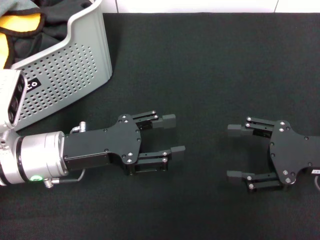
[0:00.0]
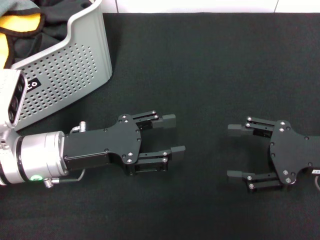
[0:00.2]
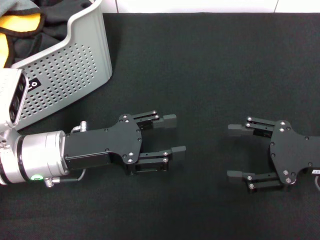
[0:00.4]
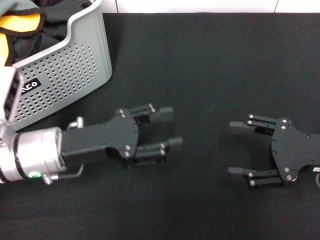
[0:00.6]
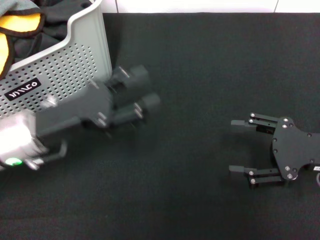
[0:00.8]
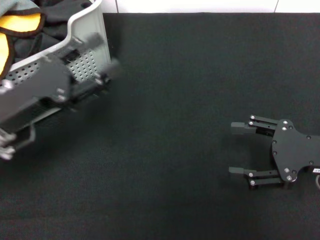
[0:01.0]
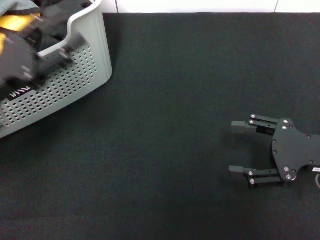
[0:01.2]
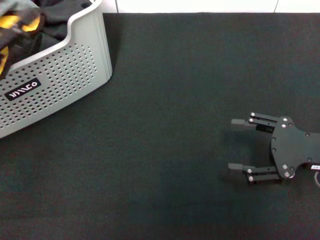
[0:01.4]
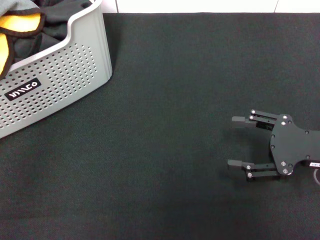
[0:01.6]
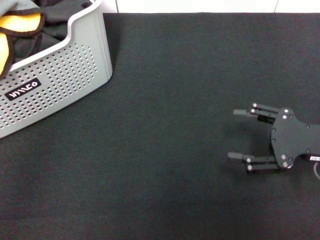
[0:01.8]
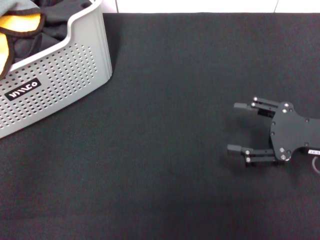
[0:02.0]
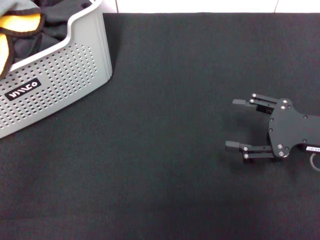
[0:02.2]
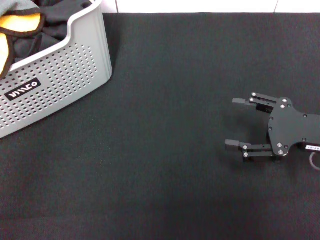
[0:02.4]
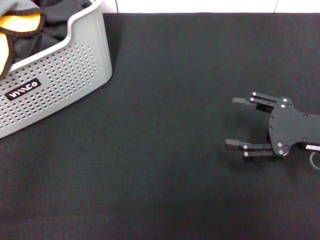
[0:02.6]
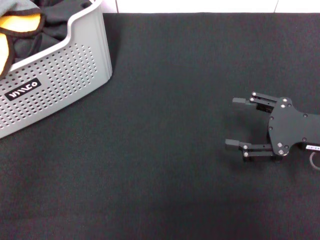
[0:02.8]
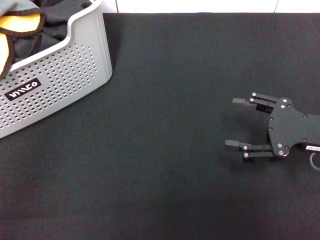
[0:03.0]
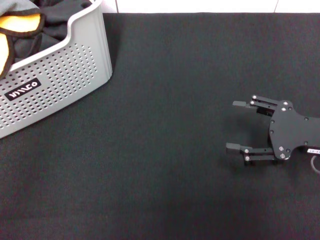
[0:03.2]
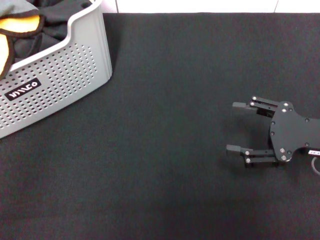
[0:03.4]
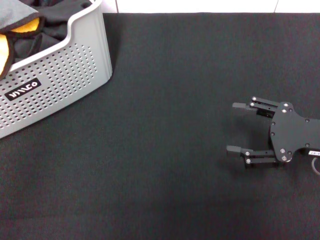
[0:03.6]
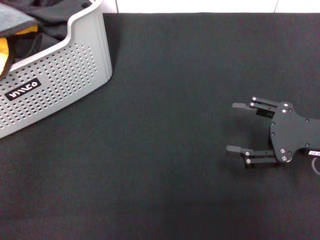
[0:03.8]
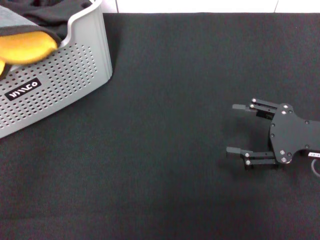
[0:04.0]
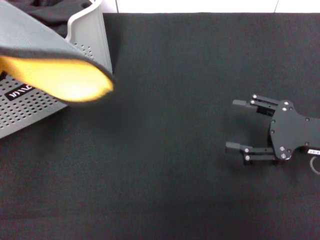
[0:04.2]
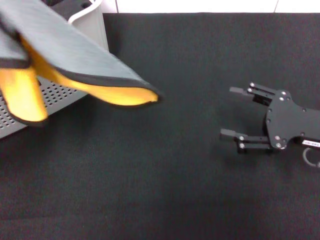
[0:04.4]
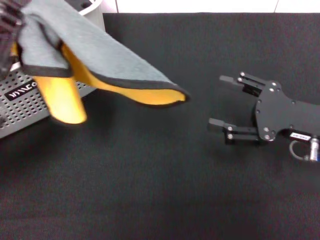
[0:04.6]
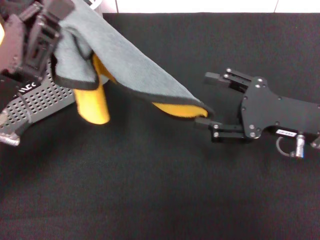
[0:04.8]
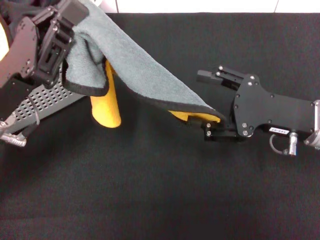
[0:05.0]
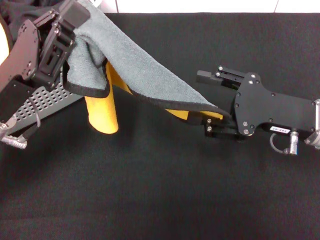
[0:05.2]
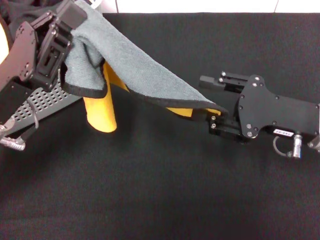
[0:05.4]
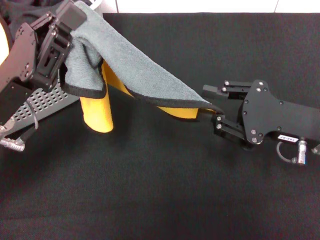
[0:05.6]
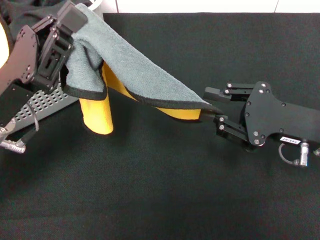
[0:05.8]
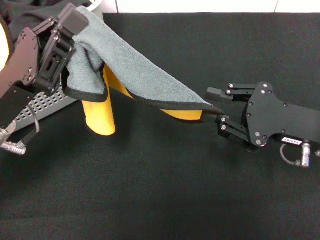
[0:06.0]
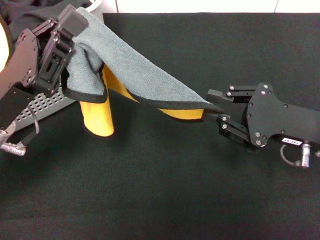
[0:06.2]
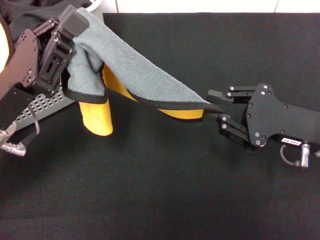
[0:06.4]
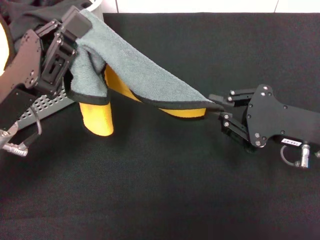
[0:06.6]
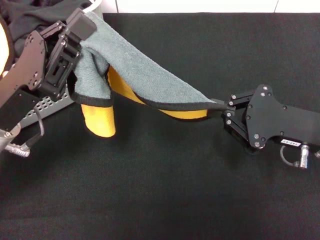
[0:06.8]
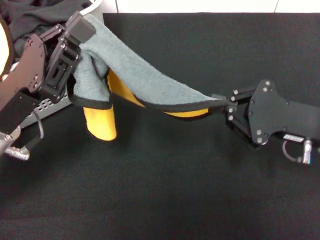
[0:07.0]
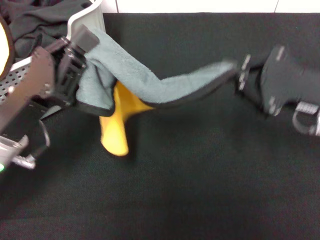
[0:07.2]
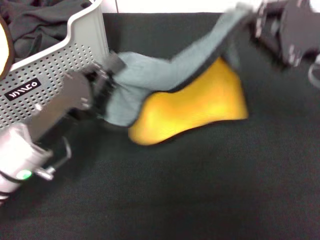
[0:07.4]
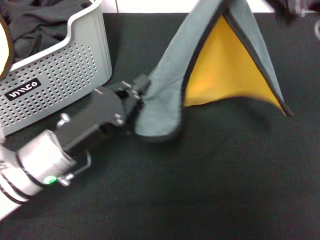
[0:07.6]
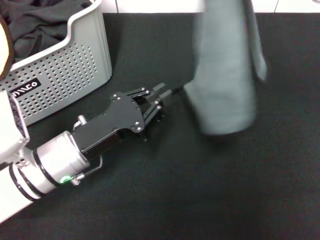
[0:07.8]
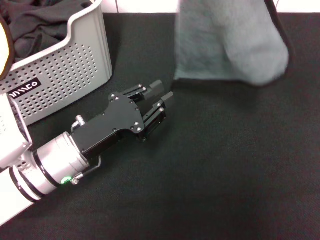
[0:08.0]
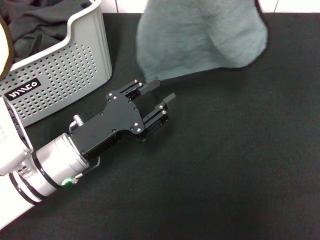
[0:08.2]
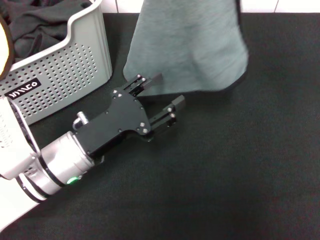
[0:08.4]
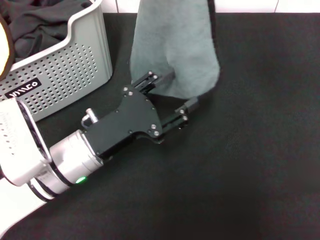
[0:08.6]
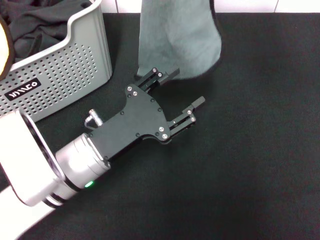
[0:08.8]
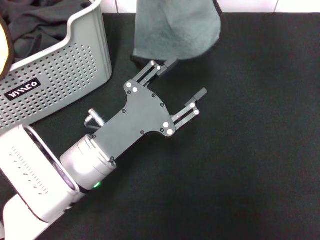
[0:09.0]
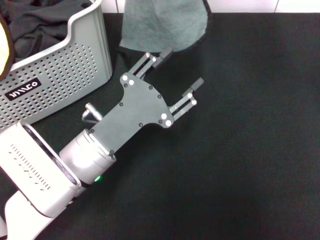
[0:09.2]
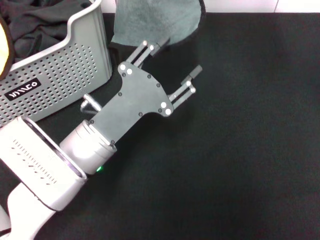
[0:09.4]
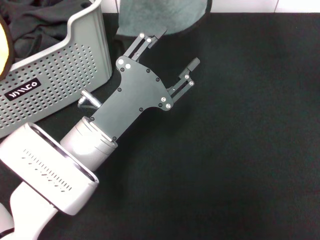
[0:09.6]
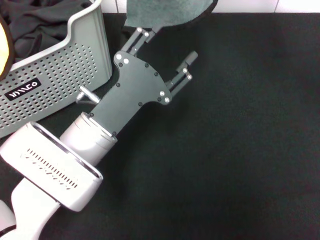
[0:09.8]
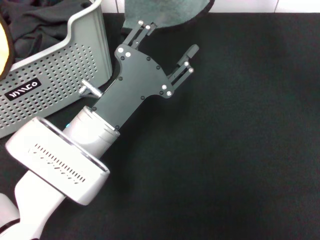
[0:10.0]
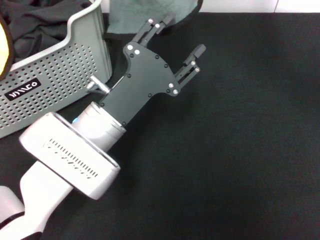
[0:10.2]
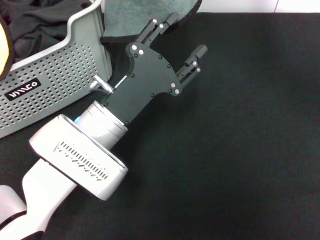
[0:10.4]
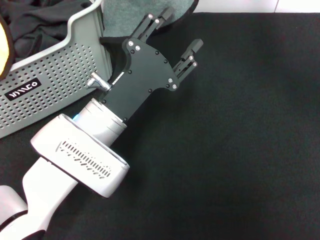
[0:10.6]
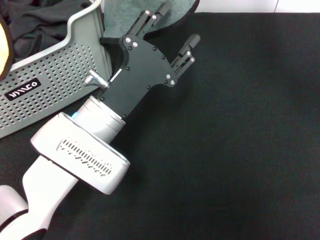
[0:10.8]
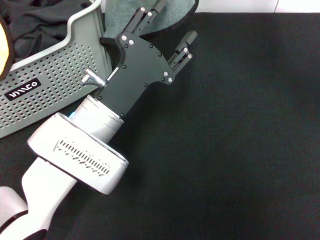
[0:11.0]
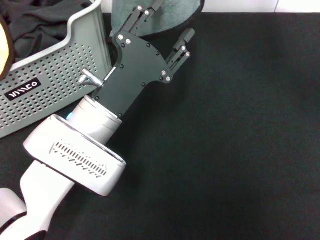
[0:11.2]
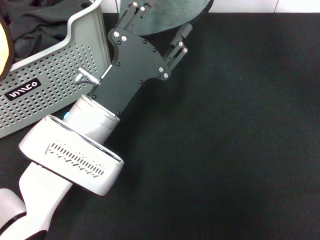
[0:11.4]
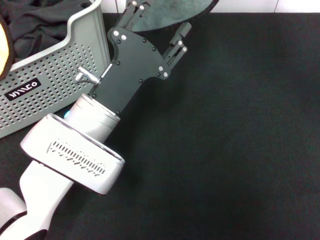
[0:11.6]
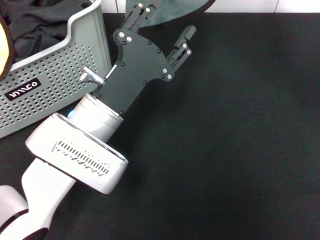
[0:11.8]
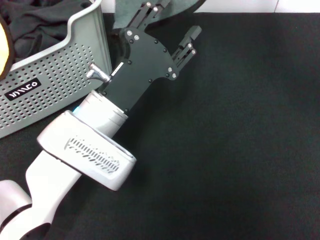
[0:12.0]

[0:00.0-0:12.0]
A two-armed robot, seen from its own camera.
Task of the whole recording: pick up the towel from the storage box and lay it flat on the black tablecloth.
Step, 0:00.0 to 0:03.4: Pick up a towel with the left gripper.
Step, 0:03.6 to 0:06.6: Spread the towel flat with the left gripper.
0:00.0 to 0:01.6: The left gripper is displaced to the left and upward by about 15 cm.
0:03.0 to 0:04.4: The left gripper heads to the right, covering roughly 10 cm, and closes.
0:04.4 to 0:06.0: The left gripper heads to the right, covering roughly 5 cm; the right gripper closes.
0:06.0 to 0:07.6: The right gripper shifts about 15 cm upward and forward, and closes up; the left gripper goes about 5 cm downward.
0:07.6 to 0:09.0: The right gripper heads to the left, upward and forward, covering approximately 10 cm. The left gripper shifts some 5 cm to the right, and opens.
0:10.4 to 0:12.0: The grippers make only small movements.

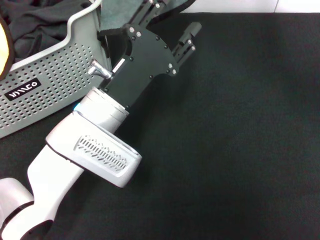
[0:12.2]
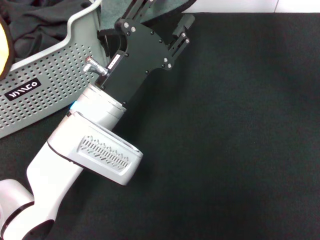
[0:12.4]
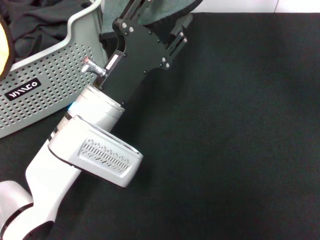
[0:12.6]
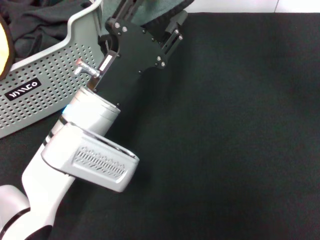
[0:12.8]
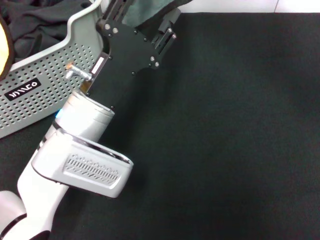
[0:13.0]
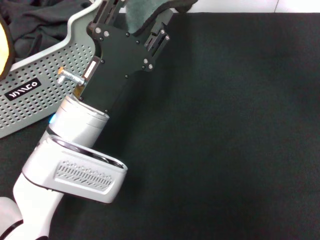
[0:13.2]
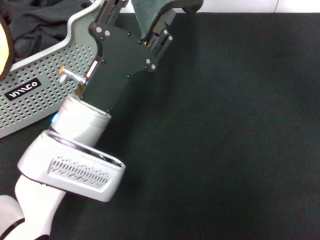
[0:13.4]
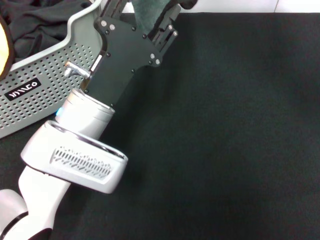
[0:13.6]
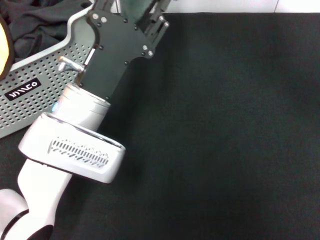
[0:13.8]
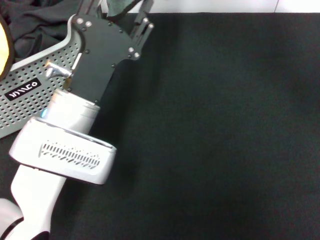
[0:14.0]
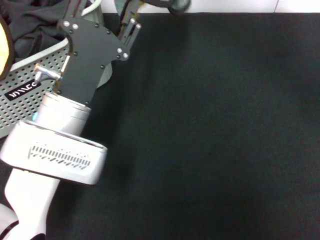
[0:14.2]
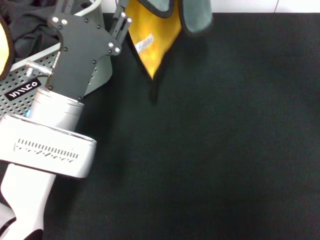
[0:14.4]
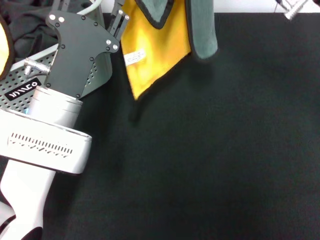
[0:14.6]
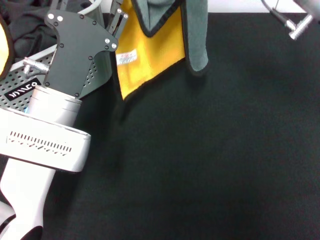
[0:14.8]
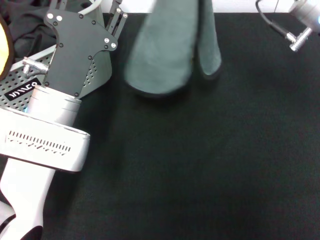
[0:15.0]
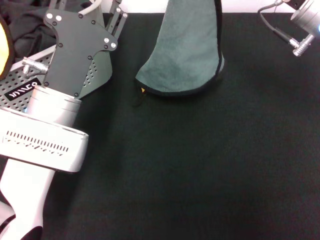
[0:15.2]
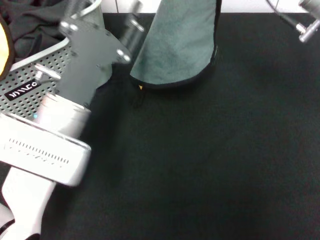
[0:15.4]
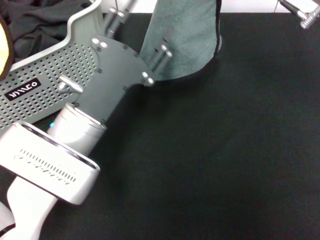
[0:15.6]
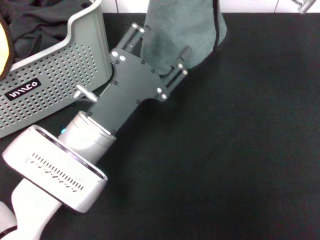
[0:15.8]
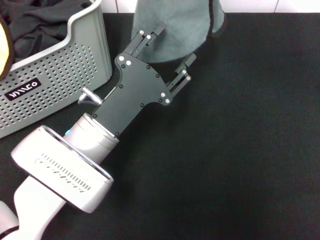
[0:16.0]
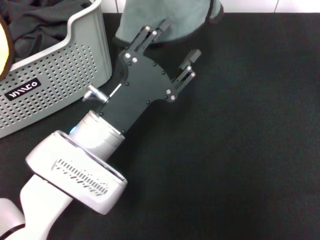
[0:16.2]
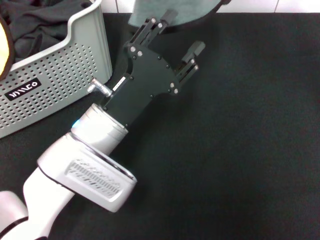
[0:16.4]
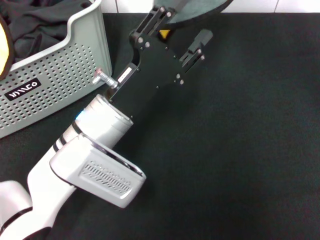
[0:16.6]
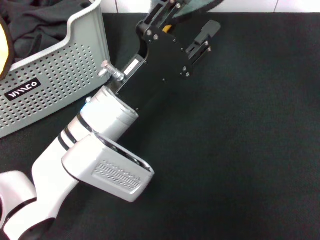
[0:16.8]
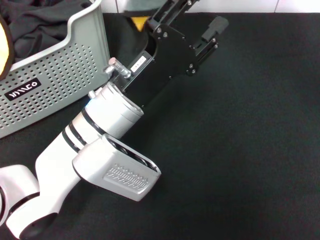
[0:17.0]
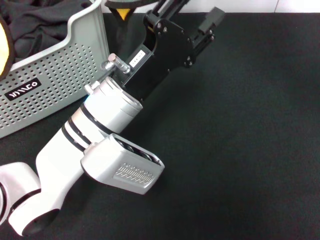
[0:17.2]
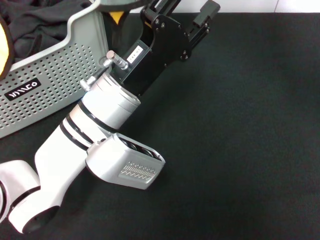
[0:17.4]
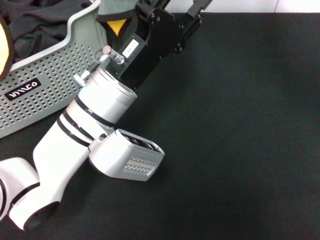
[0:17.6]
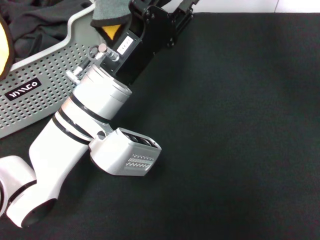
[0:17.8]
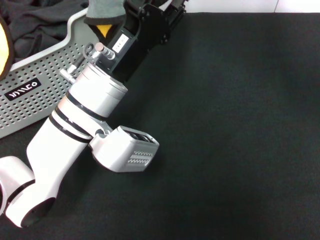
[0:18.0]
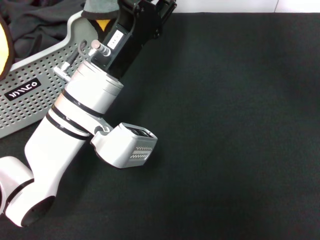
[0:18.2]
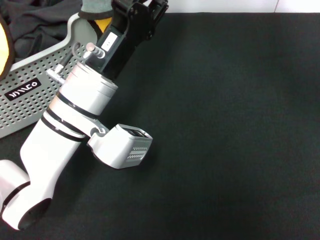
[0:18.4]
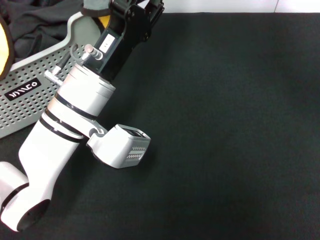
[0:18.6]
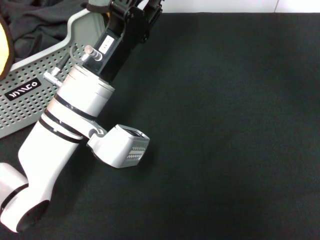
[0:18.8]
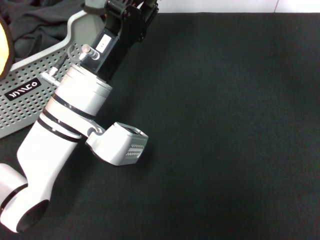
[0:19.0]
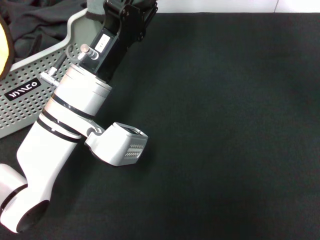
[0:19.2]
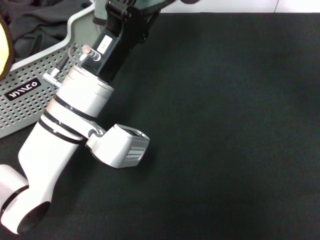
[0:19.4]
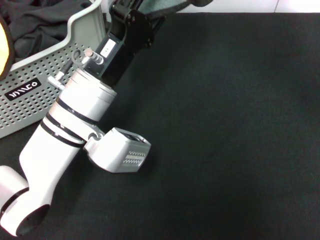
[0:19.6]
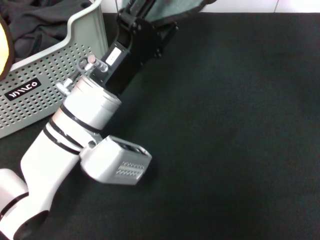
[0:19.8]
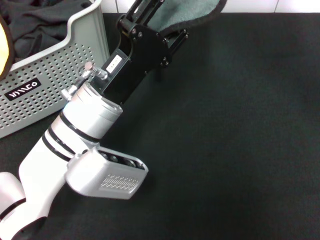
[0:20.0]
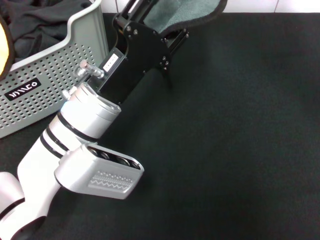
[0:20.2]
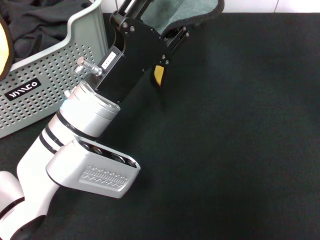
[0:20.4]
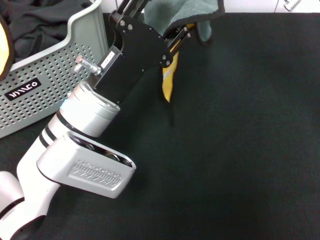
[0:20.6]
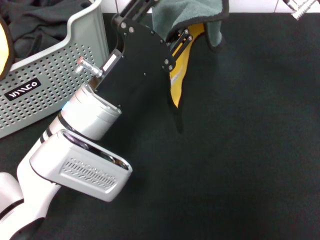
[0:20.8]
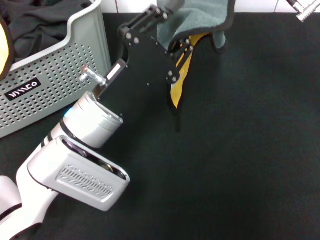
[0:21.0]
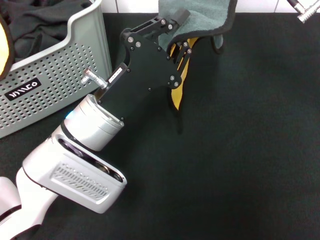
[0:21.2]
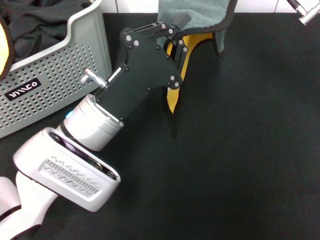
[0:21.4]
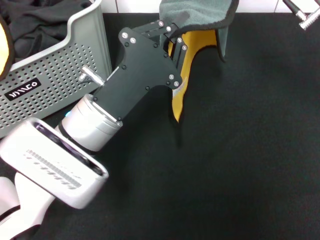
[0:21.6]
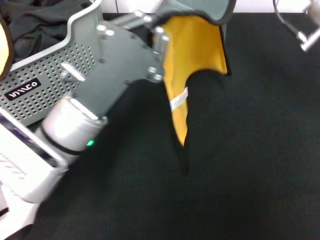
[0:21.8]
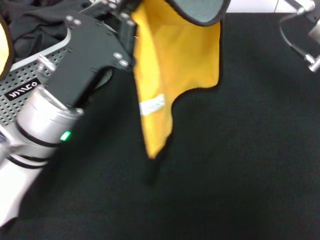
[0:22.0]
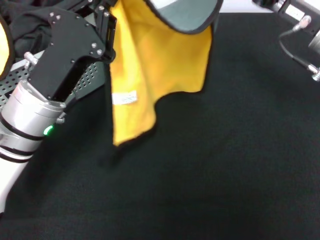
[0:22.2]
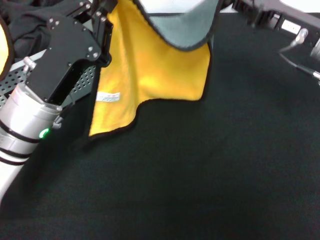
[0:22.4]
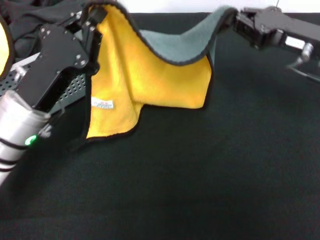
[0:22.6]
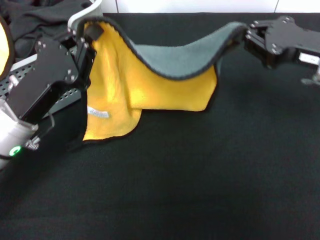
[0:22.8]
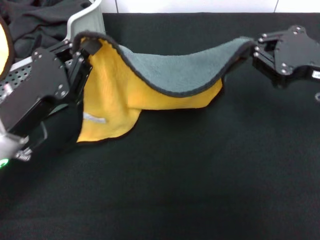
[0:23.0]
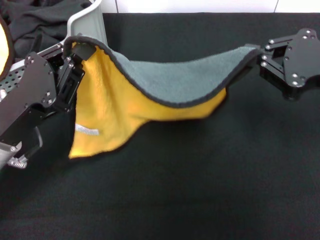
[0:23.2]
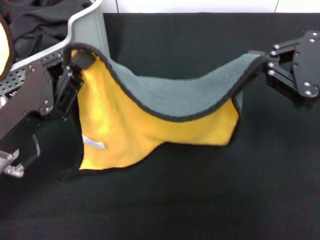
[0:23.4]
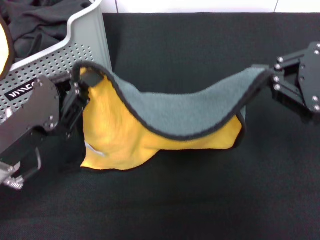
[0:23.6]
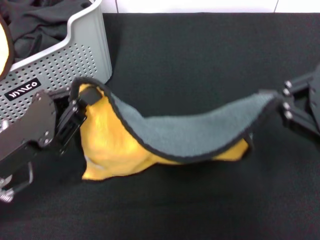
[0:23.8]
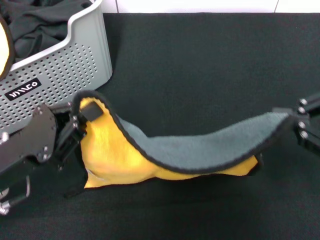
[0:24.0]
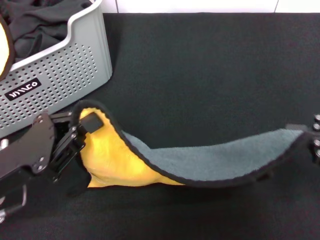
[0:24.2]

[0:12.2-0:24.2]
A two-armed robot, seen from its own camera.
Task of the whole recording: pick up the towel from the storage box and lay it flat on the black tablecloth.
0:12.2 to 0:13.8: The grippers stay close to where they were, moving slightly.
0:13.8 to 0:15.2: The right gripper heads downward and to the right, covering roughly 10 cm.
0:15.2 to 0:16.6: The right gripper travels upward by roughly 10 cm.
0:16.6 to 0:18.2: The right gripper changes place by some 5 cm.
0:18.2 to 0:19.8: The grippers make only small movements.
0:19.8 to 0:21.2: The right gripper heads downward, covering roughly 5 cm, while the left gripper closes its fingers.
0:21.2 to 0:22.6: The left gripper travels to the left by roughly 10 cm, and closes. The right gripper heads downward, covering roughly 5 cm.
0:22.6 to 0:24.2: The left gripper is displaced backward and to the left by roughly 10 cm. The right gripper goes about 15 cm backward.
